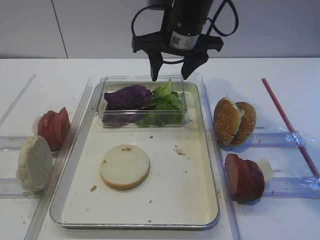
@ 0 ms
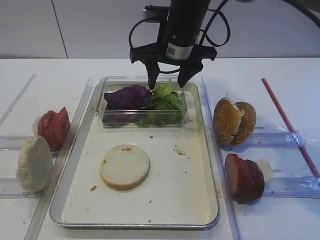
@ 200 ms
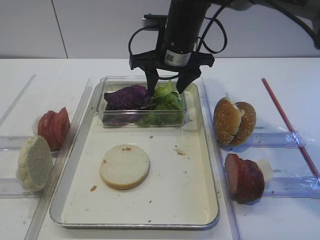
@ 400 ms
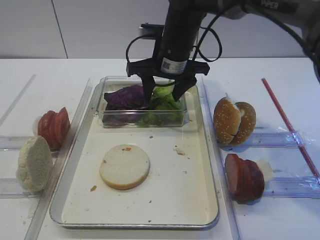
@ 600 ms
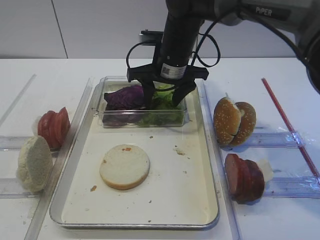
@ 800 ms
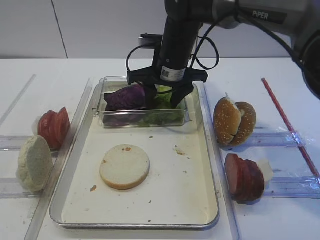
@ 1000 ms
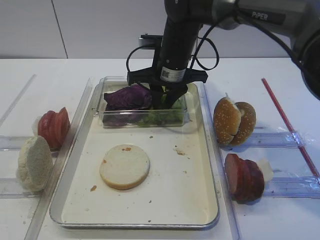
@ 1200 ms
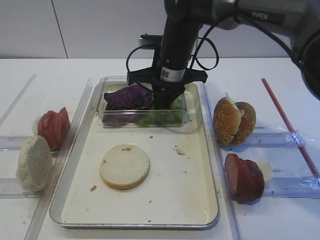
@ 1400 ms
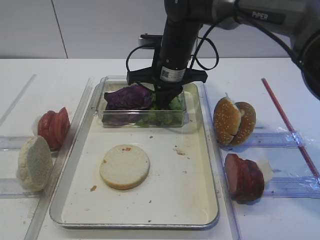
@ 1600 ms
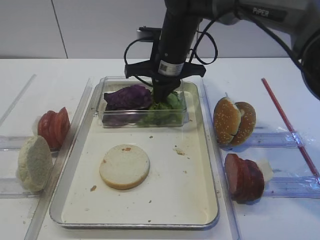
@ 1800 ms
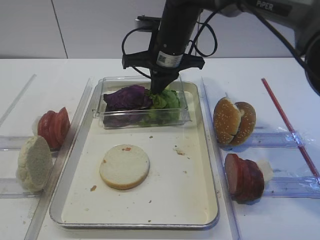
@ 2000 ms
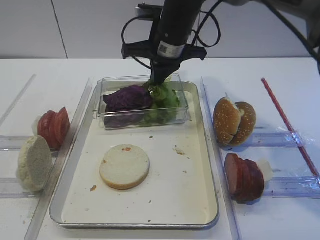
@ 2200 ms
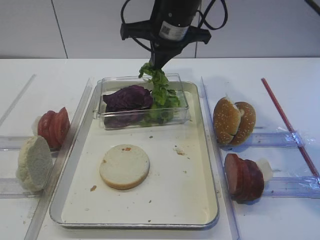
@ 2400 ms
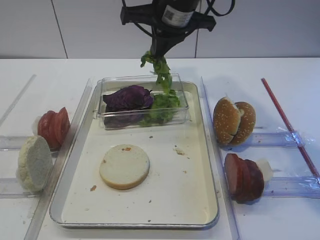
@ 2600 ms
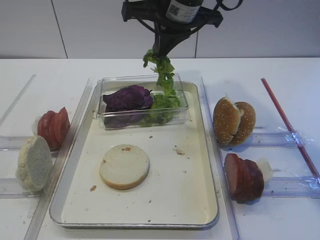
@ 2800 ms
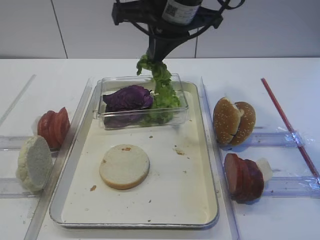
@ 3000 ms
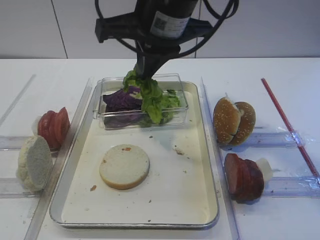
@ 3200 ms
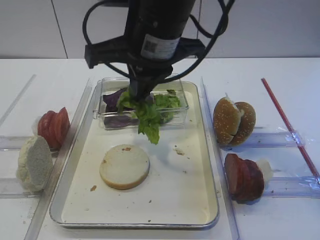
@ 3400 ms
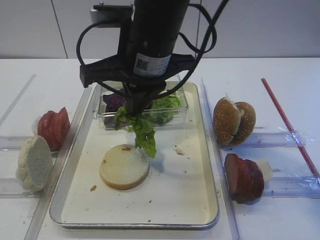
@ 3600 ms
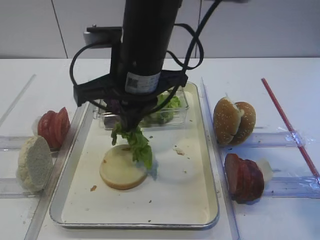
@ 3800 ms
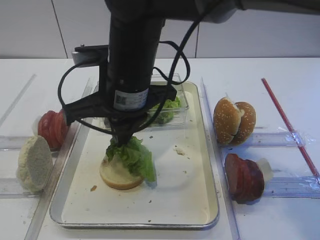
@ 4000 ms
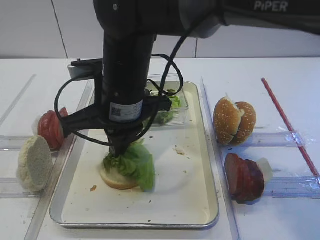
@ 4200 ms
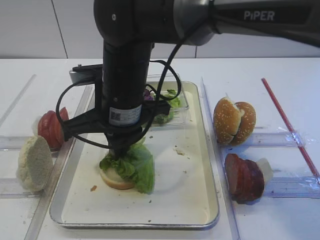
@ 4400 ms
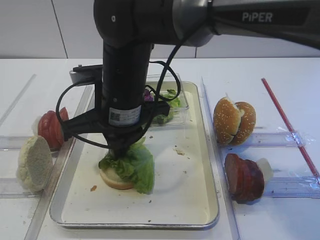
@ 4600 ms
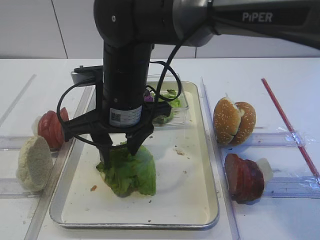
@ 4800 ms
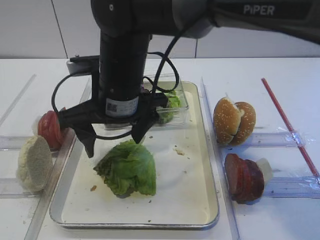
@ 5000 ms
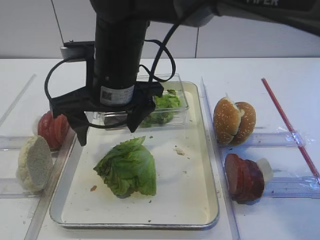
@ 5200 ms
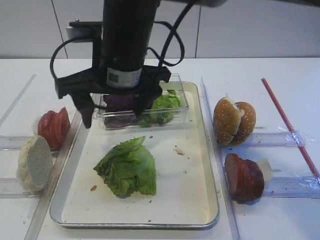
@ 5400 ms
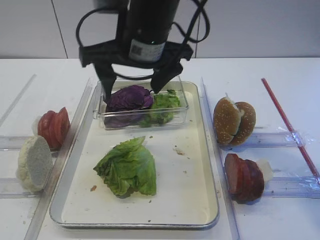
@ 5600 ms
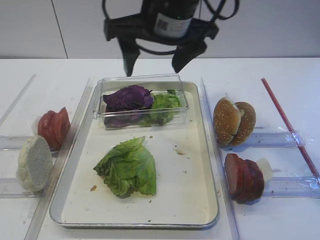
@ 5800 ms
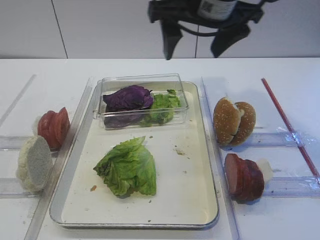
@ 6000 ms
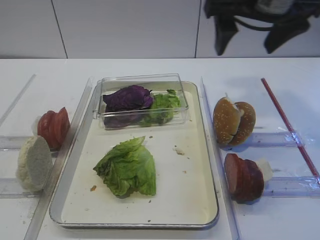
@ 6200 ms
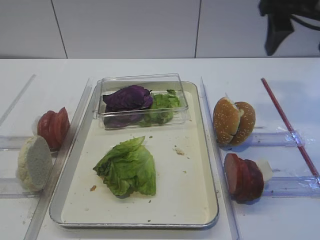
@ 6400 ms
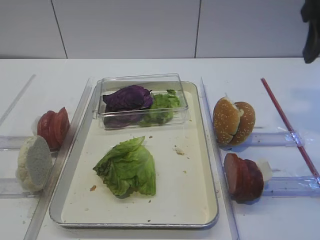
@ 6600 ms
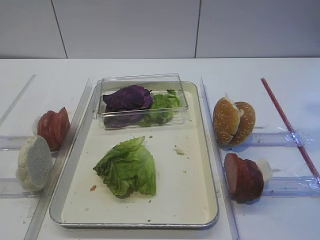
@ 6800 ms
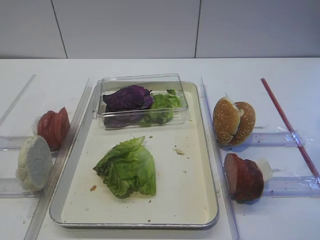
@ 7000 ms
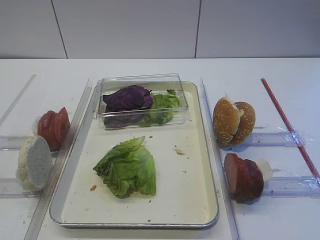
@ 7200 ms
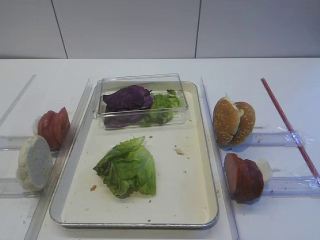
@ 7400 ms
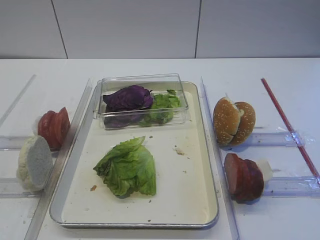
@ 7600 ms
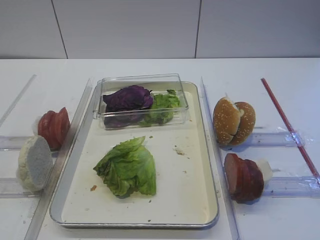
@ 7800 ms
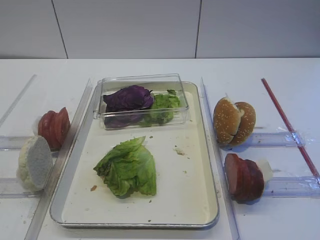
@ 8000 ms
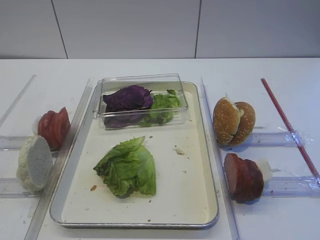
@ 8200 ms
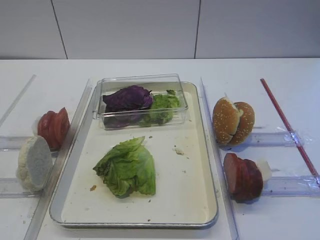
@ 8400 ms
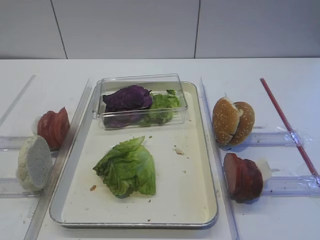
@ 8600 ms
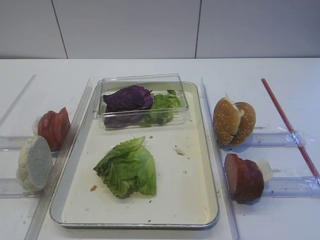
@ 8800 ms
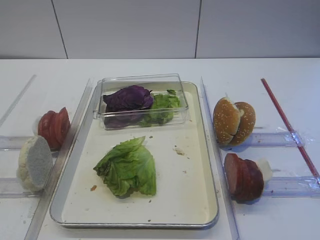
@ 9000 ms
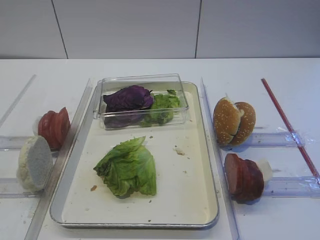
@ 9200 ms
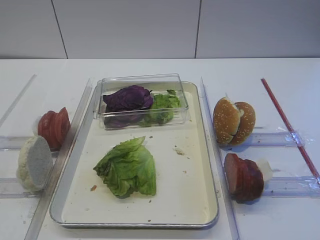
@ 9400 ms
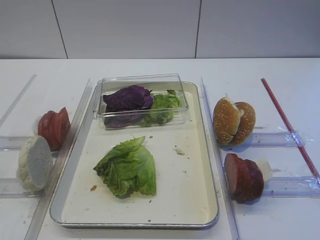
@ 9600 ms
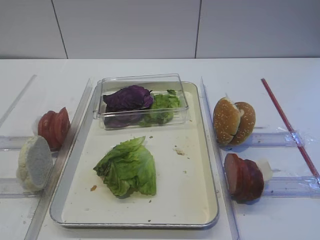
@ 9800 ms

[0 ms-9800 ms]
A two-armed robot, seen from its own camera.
Step, 0 ms to 2600 ms: Pick up the lettuce leaf with the right gripper.
Step, 2800 ms to 5200 ms: Place the lettuce leaf on the bread slice with the right gripper.
0 ms to 1400 ms: The right gripper moves downward, about 5 cm, and closes.
1400 ms to 2800 ms: The right gripper goes approximately 10 cm upward.
2800 ms to 4200 ms: The right gripper heads backward, to the left and downward, covering some 15 cm.
4200 ms to 5600 ms: The right gripper heads upward, covering roughly 5 cm, and opens.
5600 ms to 7000 ms: The right gripper goes approximately 30 cm to the right and backward.
7000 ms to 8400 ms: The right gripper moves backward and downward, some 20 cm.
8400 ms to 9800 ms: Neither gripper changes place.

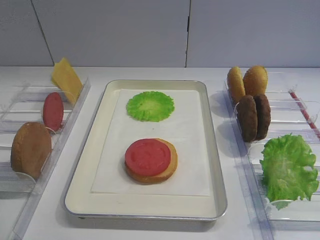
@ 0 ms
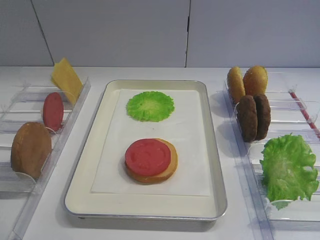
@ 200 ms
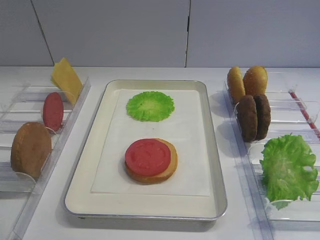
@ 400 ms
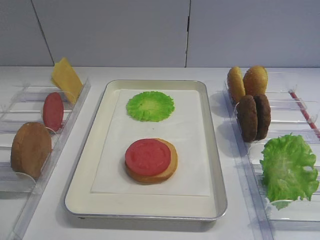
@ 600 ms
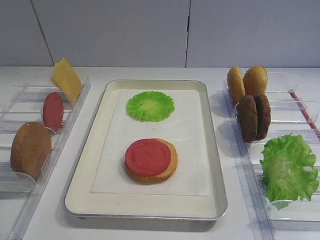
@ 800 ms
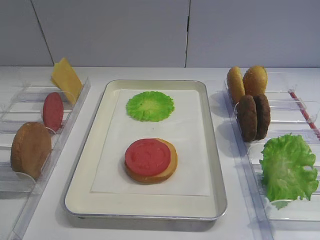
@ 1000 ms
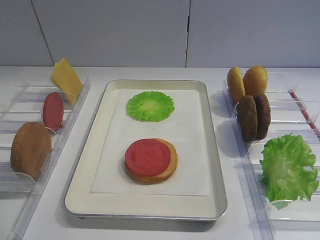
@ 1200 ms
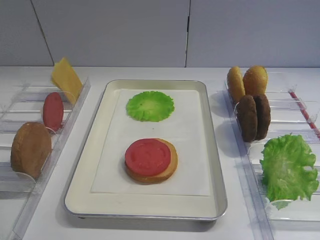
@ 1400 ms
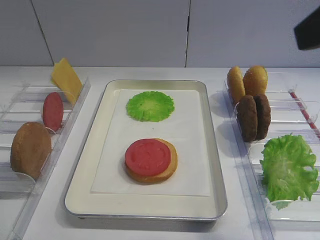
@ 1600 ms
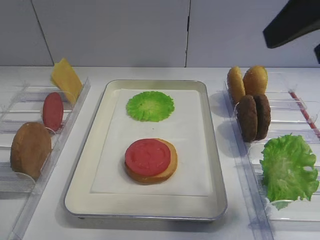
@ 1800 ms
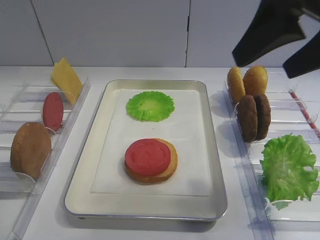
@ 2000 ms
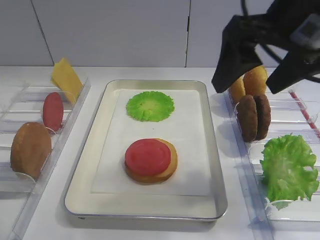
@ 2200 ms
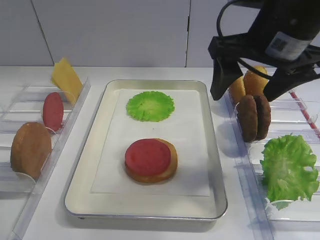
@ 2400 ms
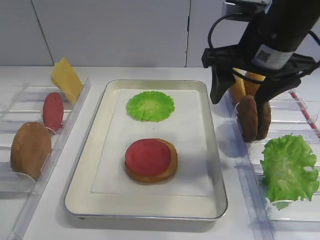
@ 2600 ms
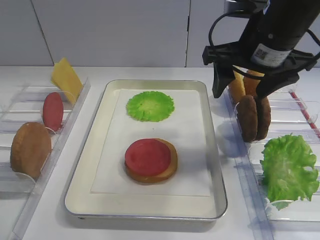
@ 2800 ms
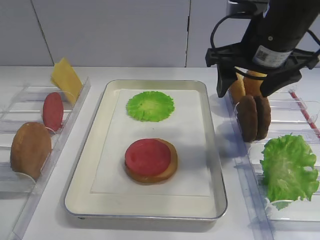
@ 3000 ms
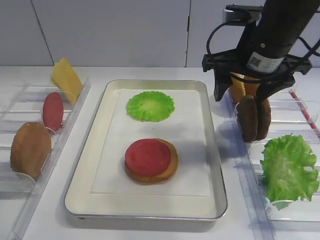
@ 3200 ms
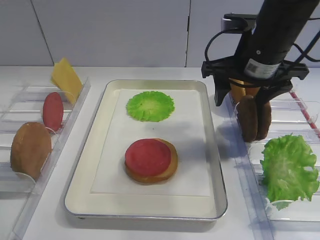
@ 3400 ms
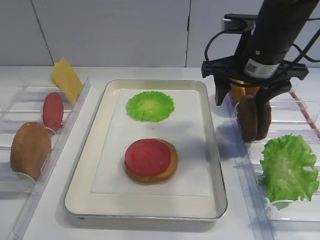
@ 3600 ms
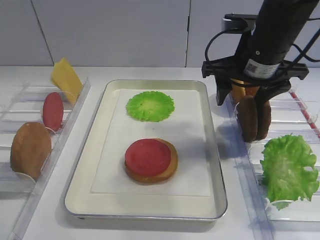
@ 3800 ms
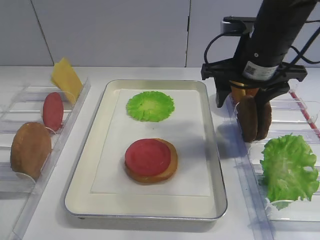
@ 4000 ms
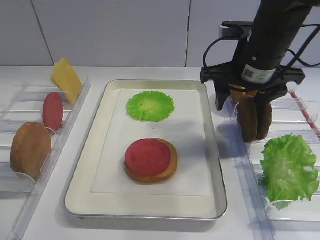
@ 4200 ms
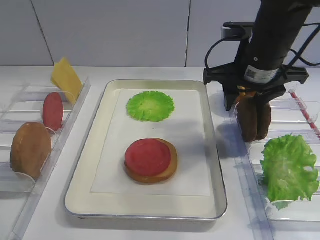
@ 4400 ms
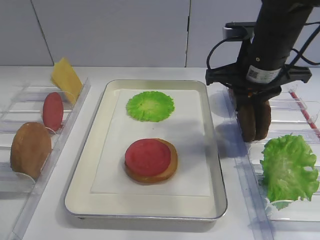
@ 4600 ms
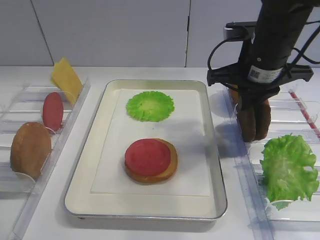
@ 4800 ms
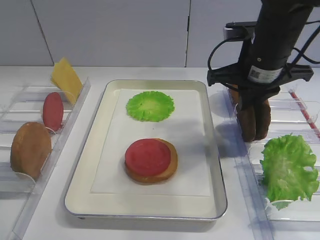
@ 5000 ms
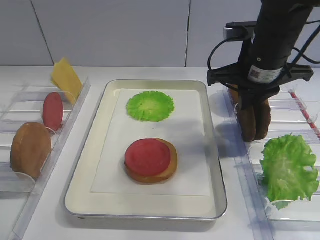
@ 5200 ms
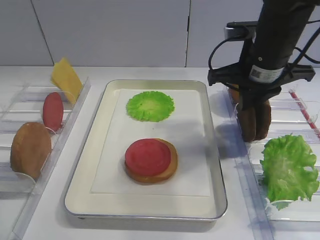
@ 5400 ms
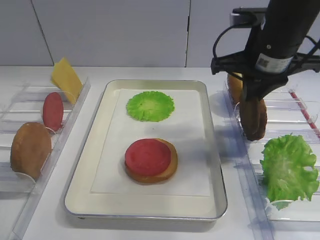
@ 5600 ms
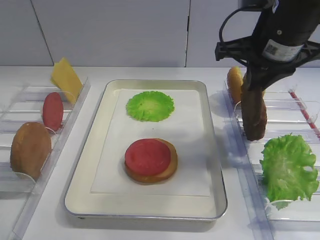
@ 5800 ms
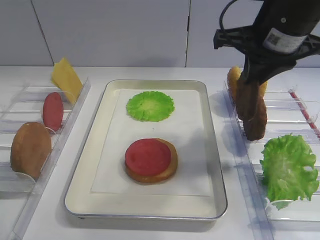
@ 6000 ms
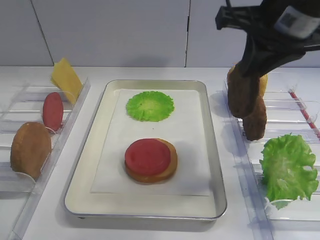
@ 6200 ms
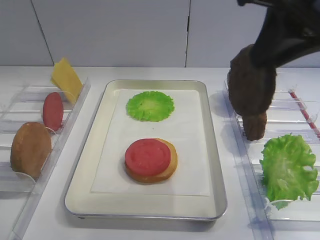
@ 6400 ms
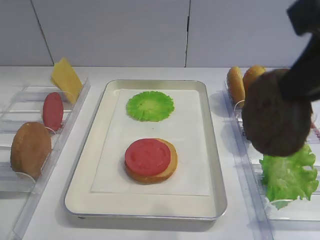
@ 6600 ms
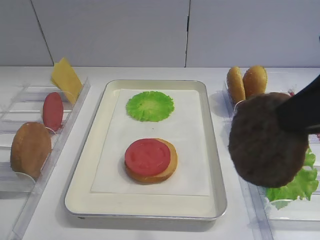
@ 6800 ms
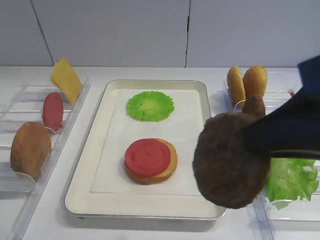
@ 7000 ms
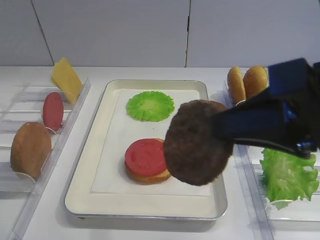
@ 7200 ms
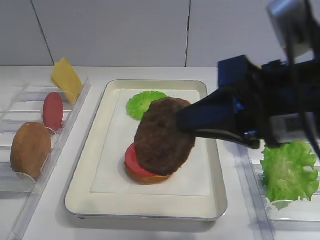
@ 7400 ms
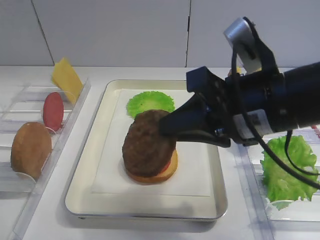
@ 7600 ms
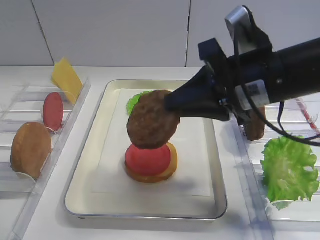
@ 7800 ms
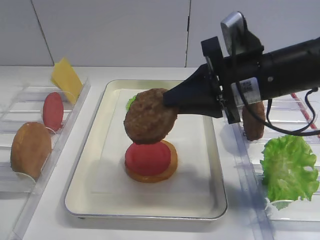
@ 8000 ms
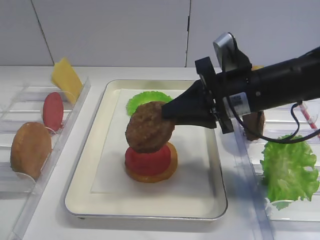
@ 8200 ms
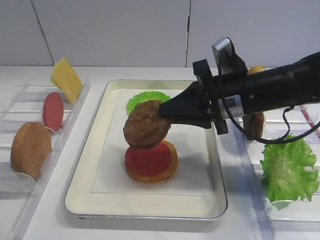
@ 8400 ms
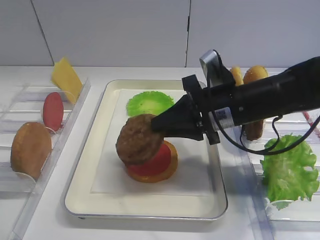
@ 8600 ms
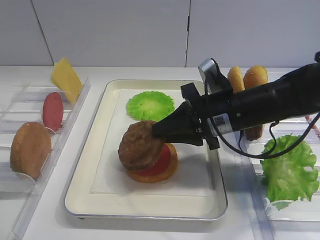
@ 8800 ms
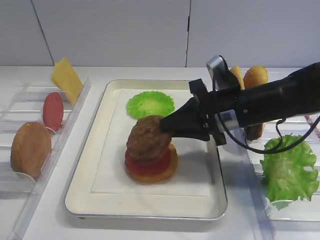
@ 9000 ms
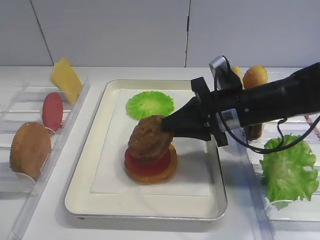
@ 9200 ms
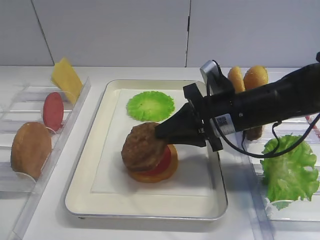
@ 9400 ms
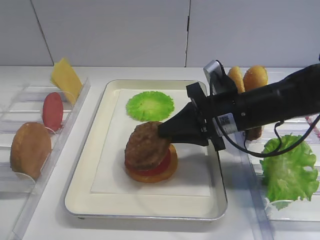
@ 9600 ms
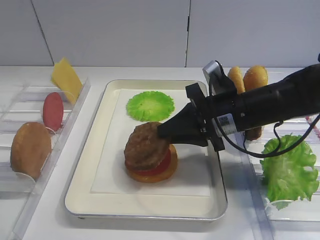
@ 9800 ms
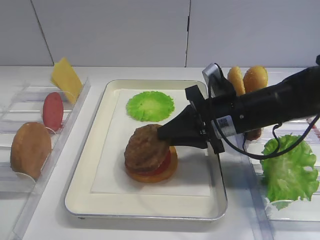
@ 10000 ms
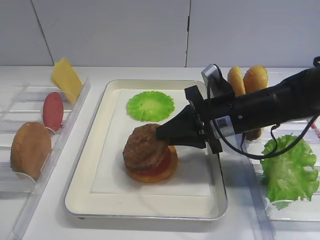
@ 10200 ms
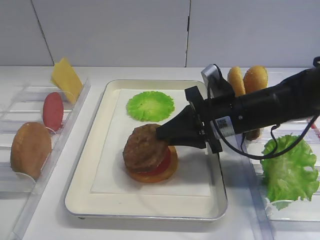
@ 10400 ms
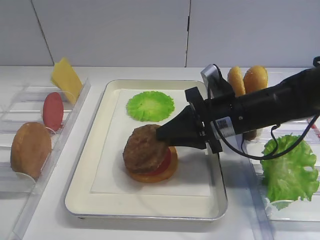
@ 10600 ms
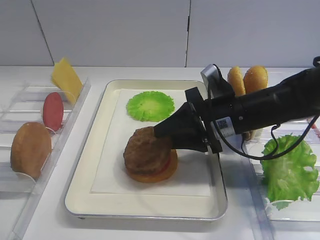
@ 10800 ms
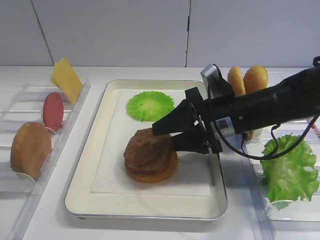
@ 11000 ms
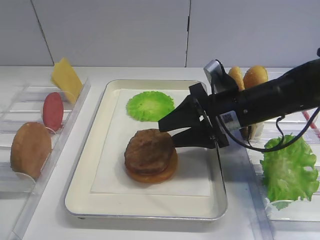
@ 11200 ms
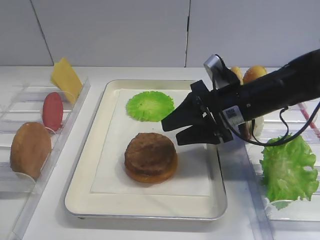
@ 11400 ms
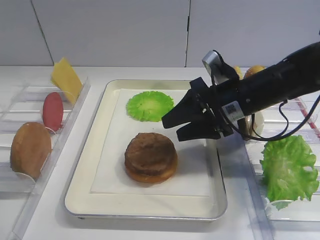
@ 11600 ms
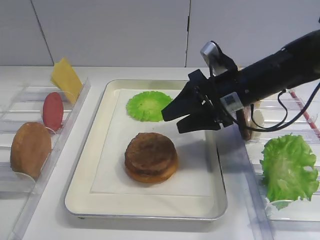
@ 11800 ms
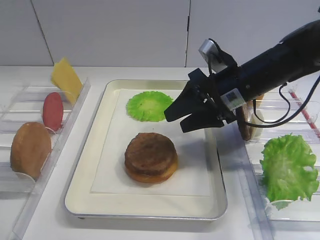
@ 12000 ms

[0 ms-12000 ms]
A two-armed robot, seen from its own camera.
Step, 0 ms to 5600 ms: Pick up the cutlet with the right gripper.
Step, 6000 ms to 11200 ms: Place the cutlet on the tomato slice with the right gripper.
1600 ms to 3000 ms: The right gripper goes about 20 cm forward, downward and to the left.
3000 ms to 4400 ms: The grippers move only a little.
4400 ms to 6000 ms: The right gripper travels upward by approximately 5 cm, and closes up.
6000 ms to 7600 ms: The right gripper moves backward, roughly 10 cm.
7600 ms to 9000 ms: The right gripper goes some 15 cm forward and downward.
9000 ms to 10400 ms: Neither gripper changes place.
10400 ms to 12000 ms: The right gripper changes place by roughly 5 cm, and opens up.
